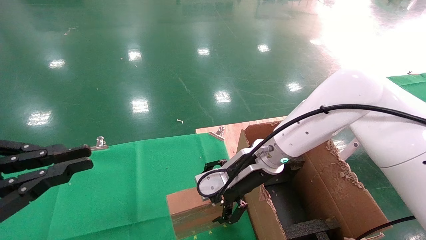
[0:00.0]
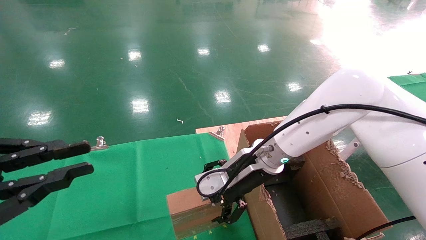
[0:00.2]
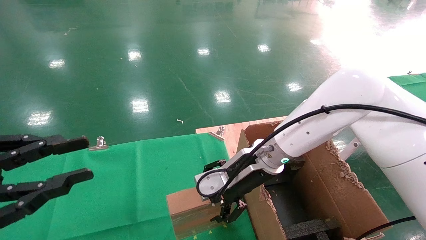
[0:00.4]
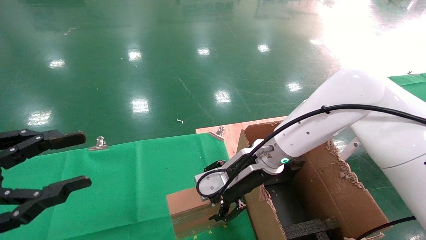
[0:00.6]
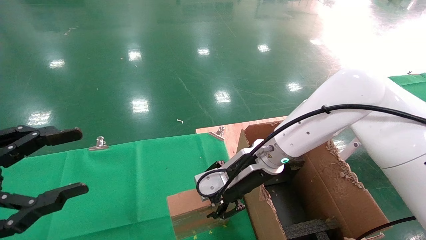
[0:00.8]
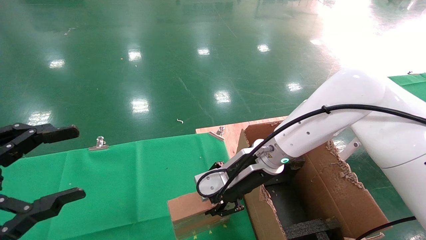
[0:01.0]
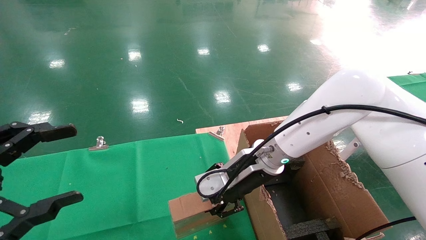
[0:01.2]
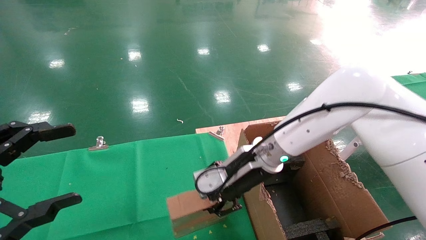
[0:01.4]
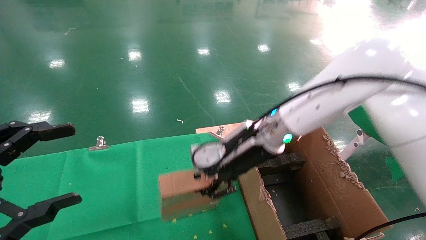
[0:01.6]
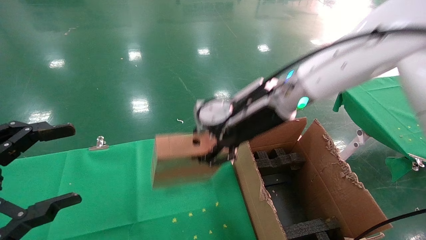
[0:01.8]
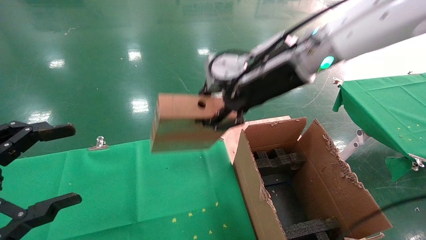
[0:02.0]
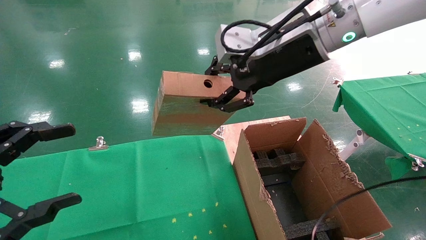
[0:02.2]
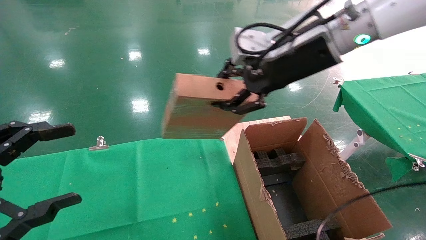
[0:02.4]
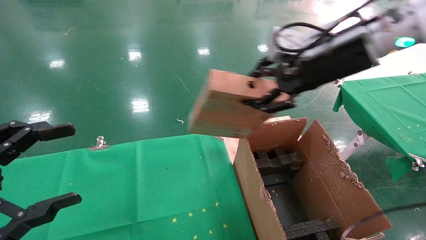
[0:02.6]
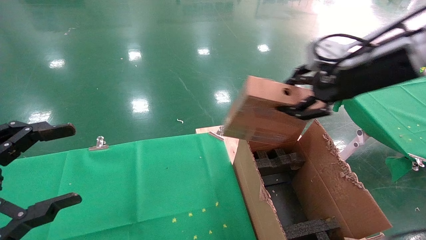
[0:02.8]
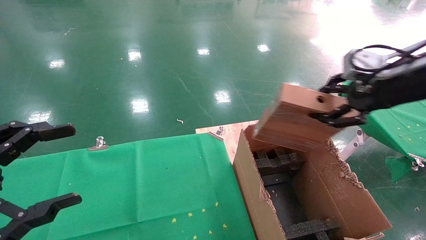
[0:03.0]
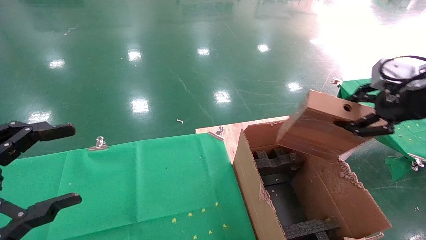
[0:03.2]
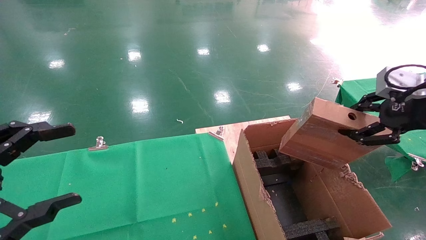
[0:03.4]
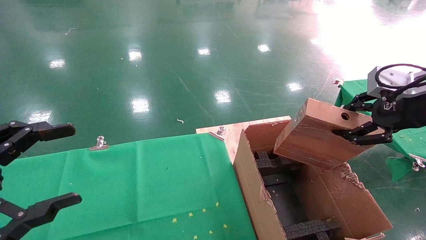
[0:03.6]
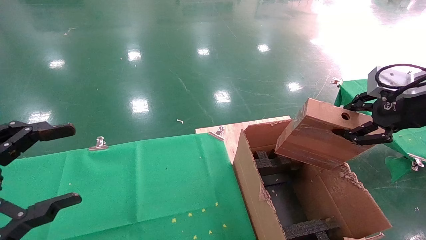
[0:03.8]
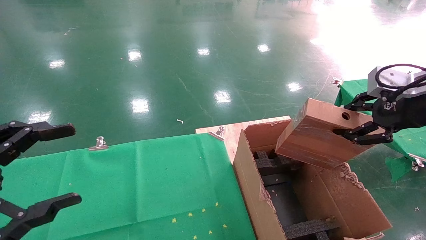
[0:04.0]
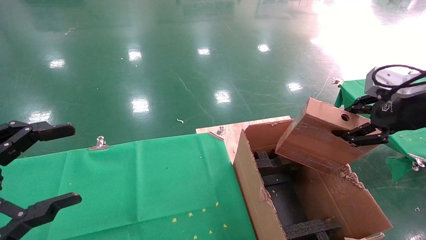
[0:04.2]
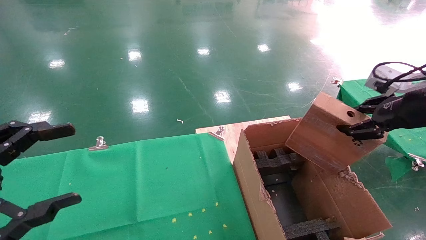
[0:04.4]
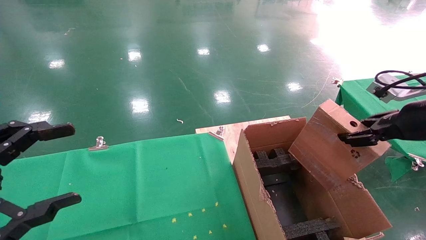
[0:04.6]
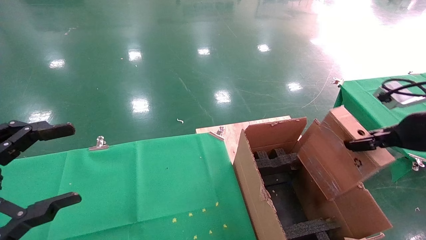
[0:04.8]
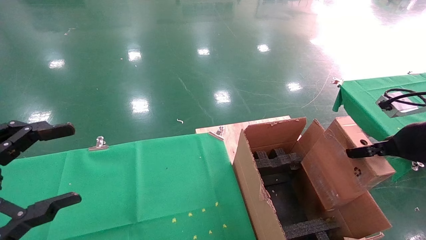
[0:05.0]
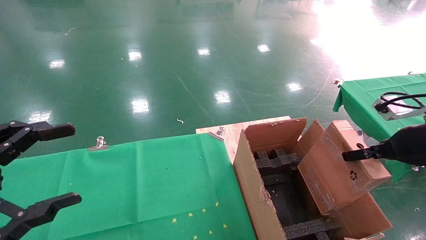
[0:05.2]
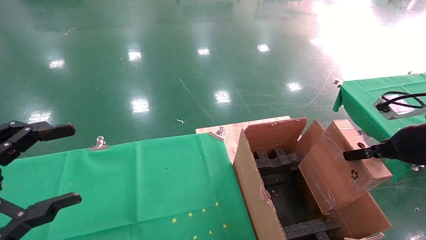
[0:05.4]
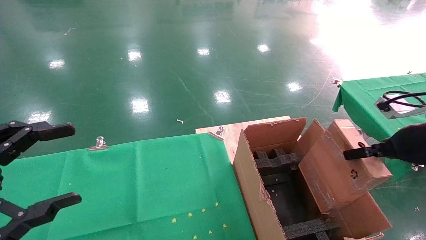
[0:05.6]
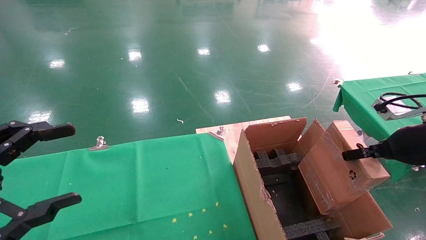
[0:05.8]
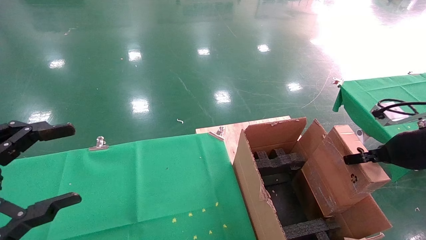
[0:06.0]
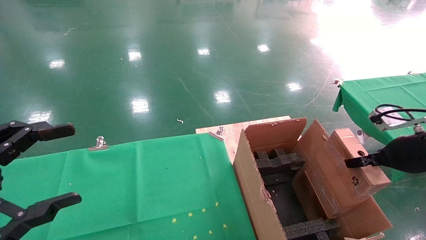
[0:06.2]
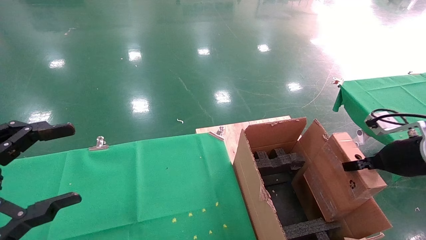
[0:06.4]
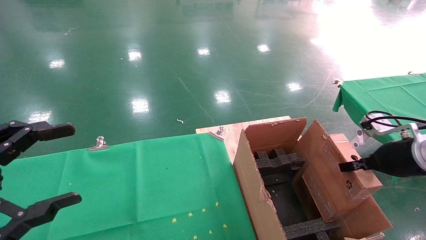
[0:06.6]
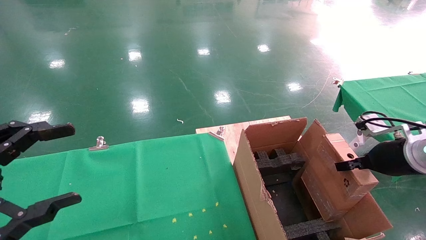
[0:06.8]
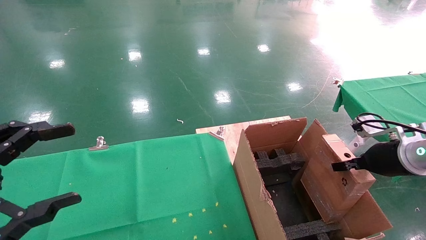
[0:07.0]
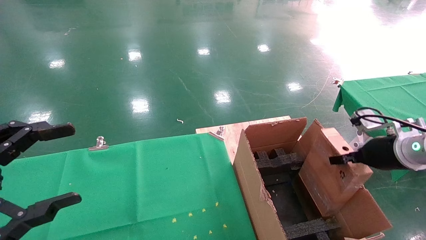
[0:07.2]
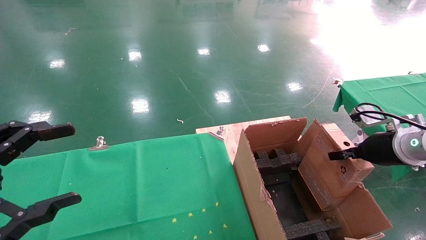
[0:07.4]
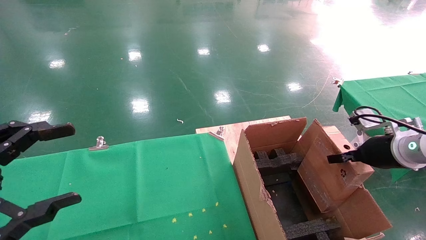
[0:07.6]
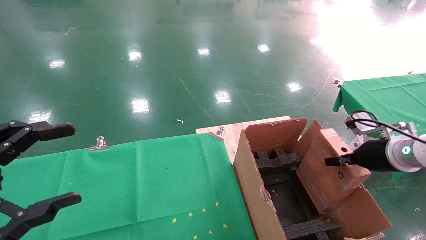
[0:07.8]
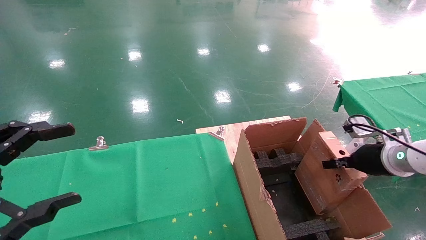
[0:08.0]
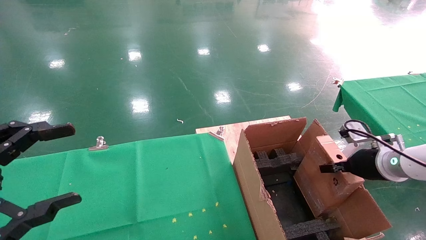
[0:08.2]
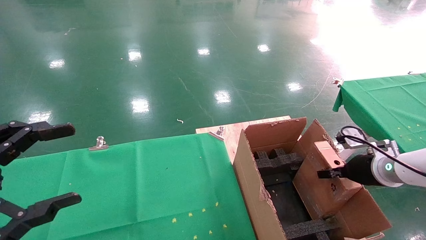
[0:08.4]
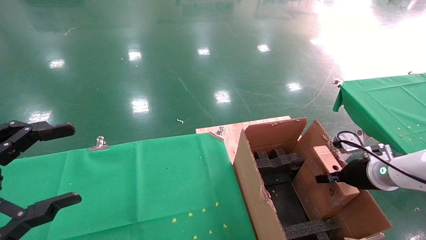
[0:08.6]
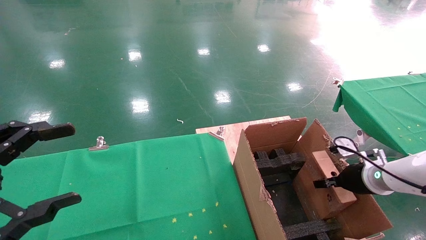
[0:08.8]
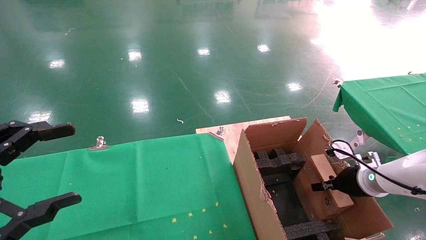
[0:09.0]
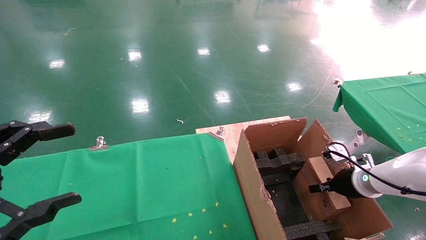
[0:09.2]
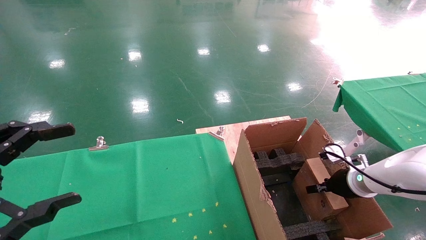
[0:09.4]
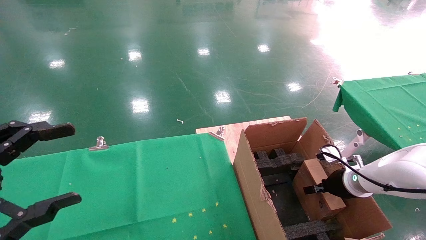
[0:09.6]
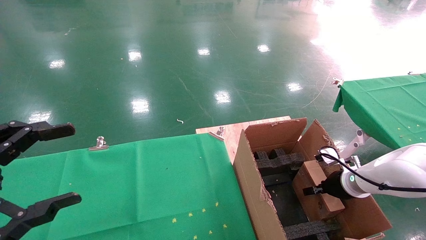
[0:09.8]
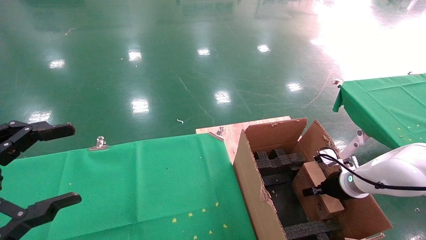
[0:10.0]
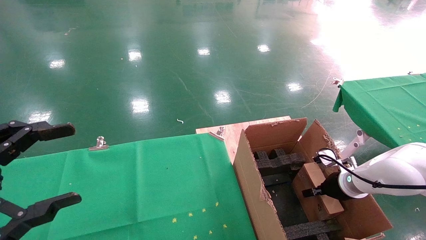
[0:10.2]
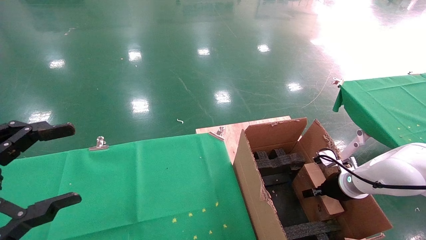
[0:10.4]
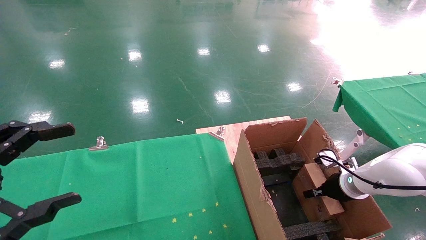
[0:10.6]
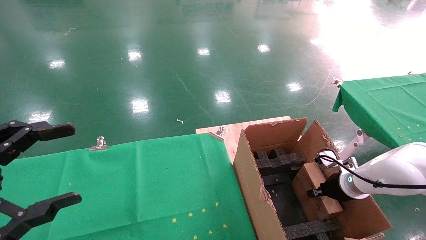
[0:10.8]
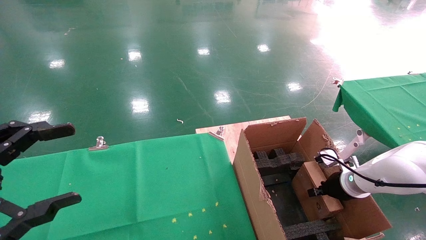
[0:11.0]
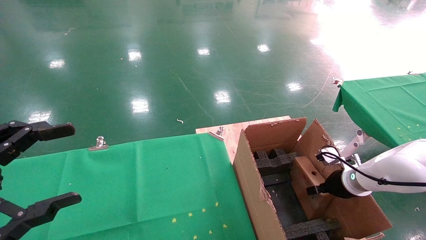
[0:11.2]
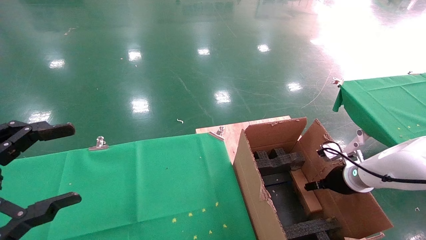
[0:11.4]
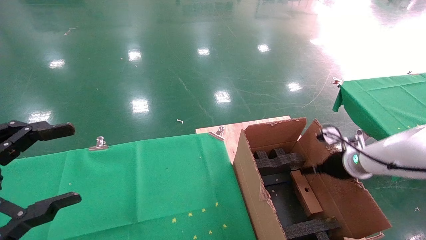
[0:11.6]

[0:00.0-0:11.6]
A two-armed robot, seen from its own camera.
Task of the whole recording: using a robotic arm to pick up a cardboard box and palace it the carton.
Step, 0:01.2 to 0:11.4: Place the mouse and the power cord paper box into the container.
0:00.0 to 0:01.4: The left gripper opens its fingers. Meanwhile the right gripper closes.
0:01.4 to 0:02.8: The right gripper heads to the right and upward, covering approximately 25 cm.
0:02.8 to 0:04.4: The right gripper goes roughly 15 cm to the right and downward.
0:04.4 to 0:05.8: The right gripper moves downward, about 5 cm.
0:05.8 to 0:07.2: The right gripper shifts roughly 5 cm forward.
0:07.2 to 0:08.8: The right gripper shifts about 10 cm downward.
0:08.8 to 0:10.2: The right gripper changes place by about 5 cm.
0:10.2 to 0:11.6: The right gripper shifts about 10 cm upward, and opens up.

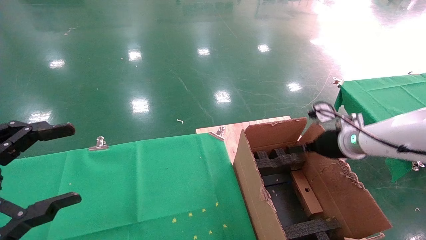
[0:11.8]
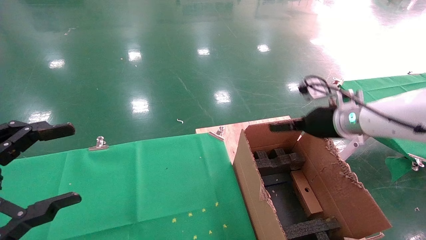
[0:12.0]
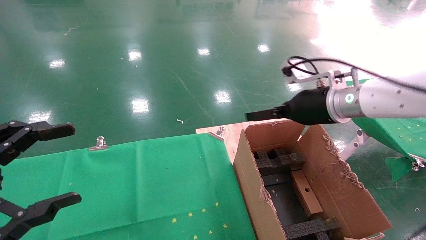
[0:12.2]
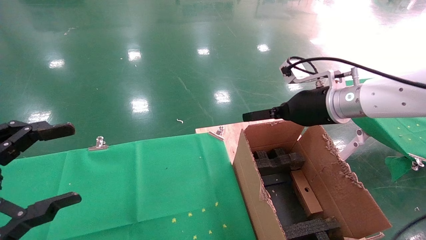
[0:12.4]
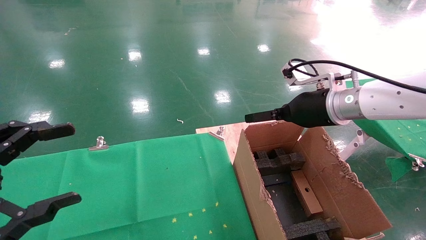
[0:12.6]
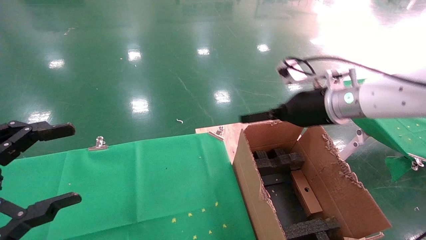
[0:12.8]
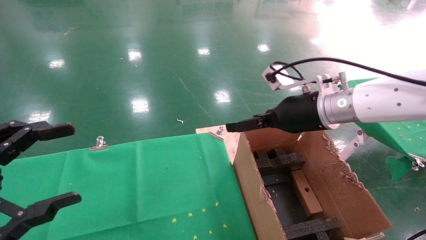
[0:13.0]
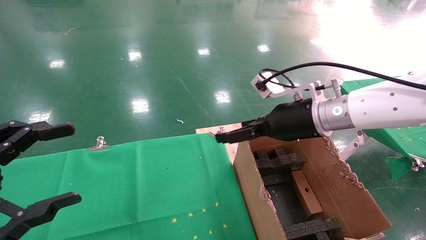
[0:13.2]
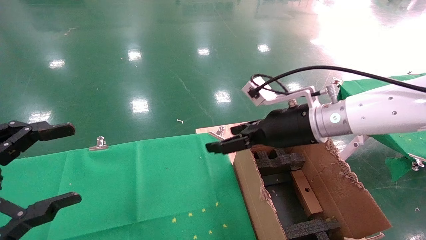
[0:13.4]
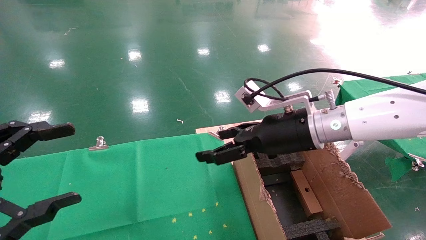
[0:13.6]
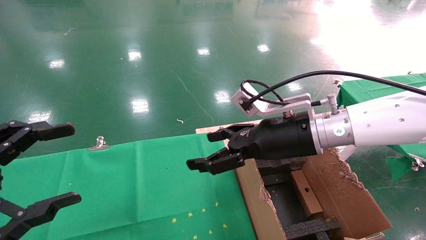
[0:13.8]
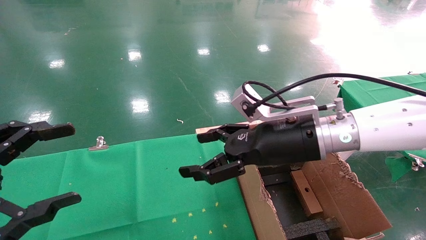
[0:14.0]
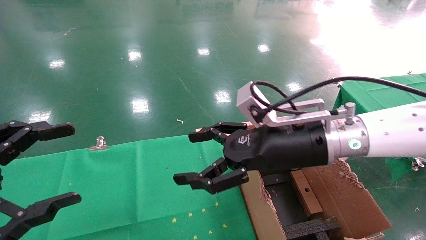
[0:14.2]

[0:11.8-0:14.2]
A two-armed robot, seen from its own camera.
Task of the whole recording: using a robotic arm to pick up a cardboard box and palace it the carton.
0:11.8 to 0:13.0: The right gripper shifts about 15 cm to the left and upward.
0:13.0 to 0:14.2: The right gripper heads backward and to the left, covering approximately 10 cm.
